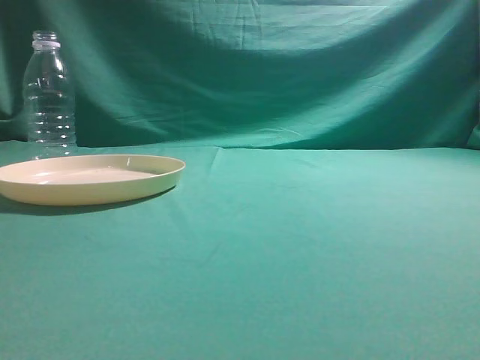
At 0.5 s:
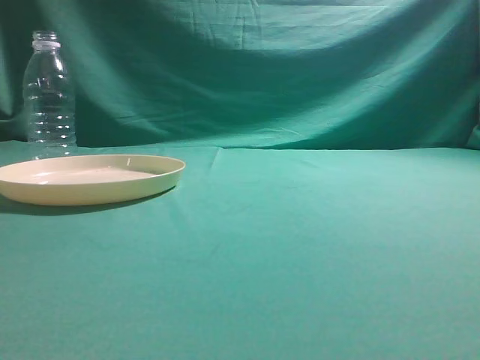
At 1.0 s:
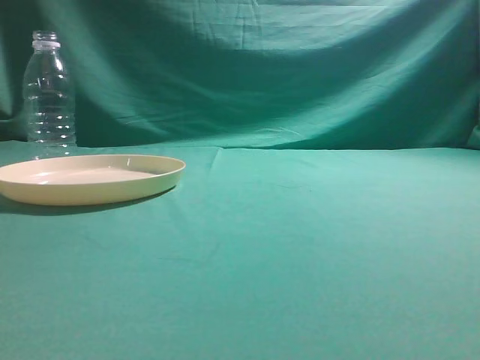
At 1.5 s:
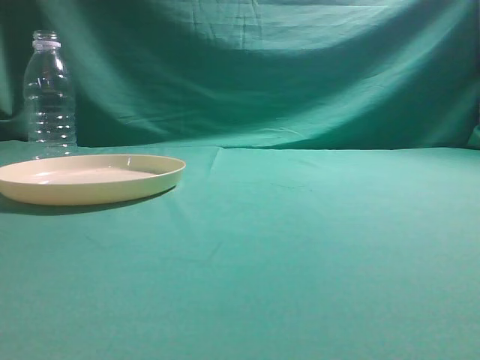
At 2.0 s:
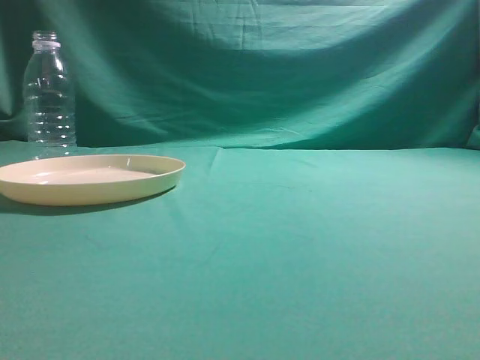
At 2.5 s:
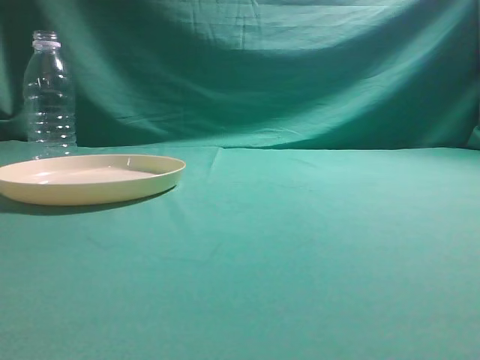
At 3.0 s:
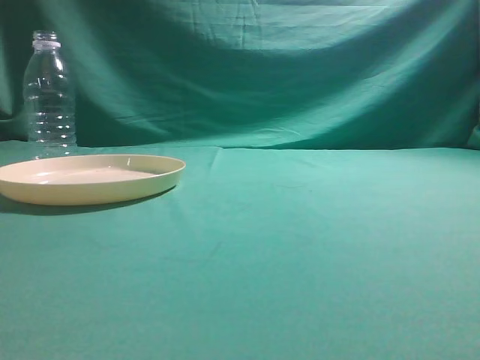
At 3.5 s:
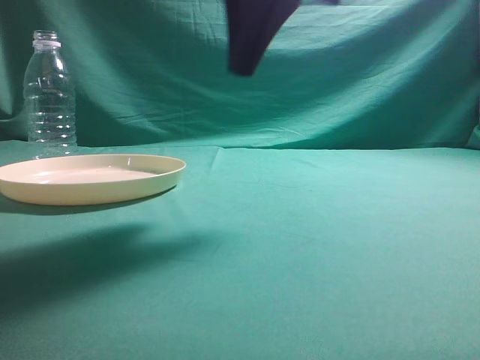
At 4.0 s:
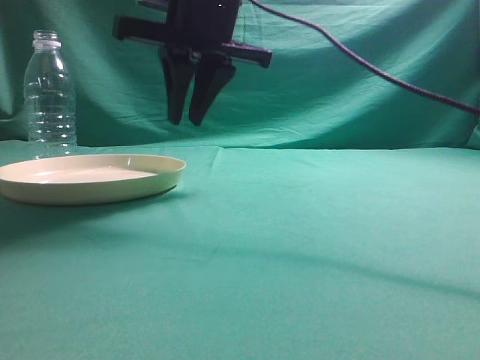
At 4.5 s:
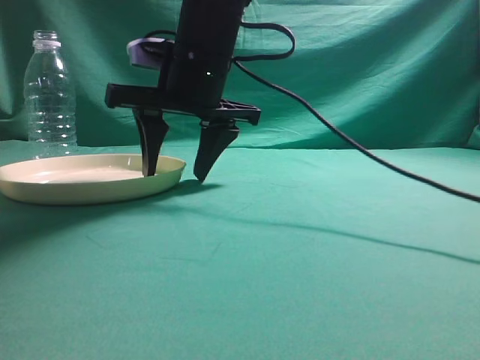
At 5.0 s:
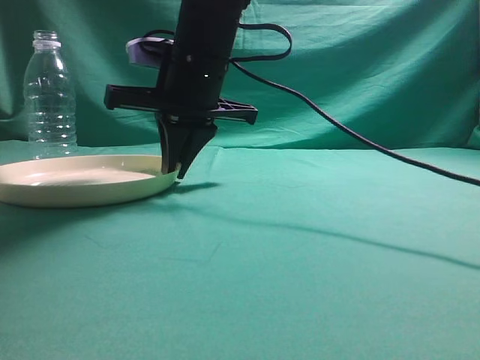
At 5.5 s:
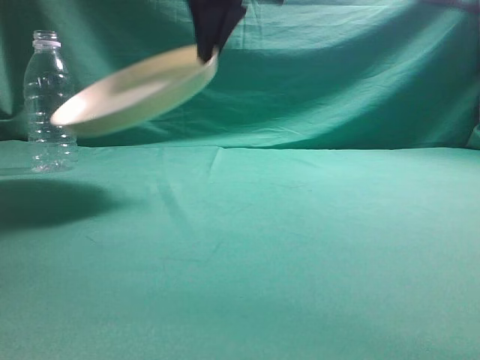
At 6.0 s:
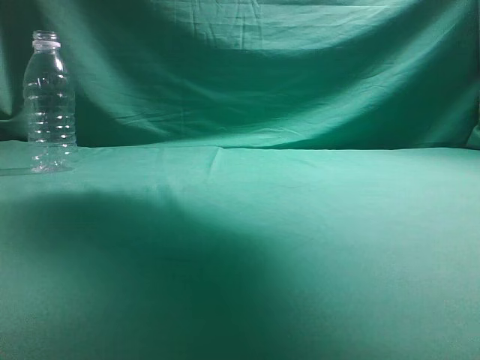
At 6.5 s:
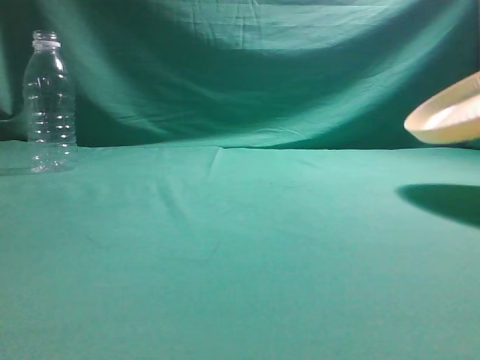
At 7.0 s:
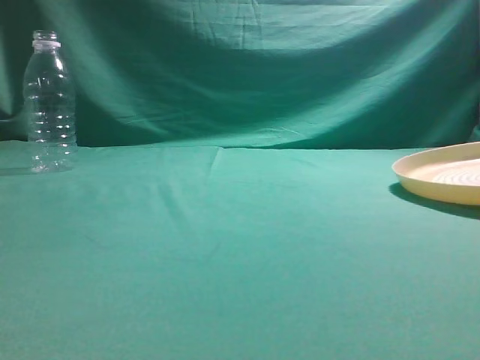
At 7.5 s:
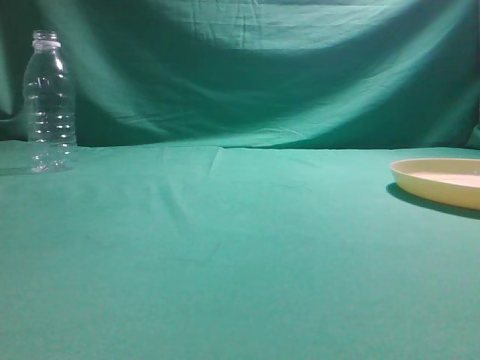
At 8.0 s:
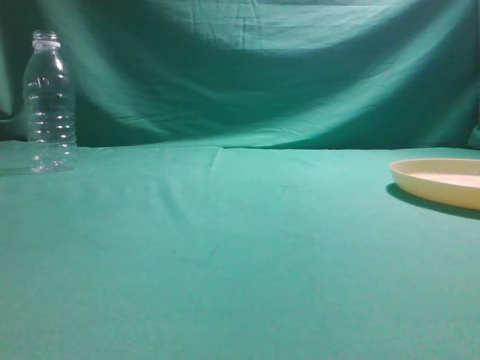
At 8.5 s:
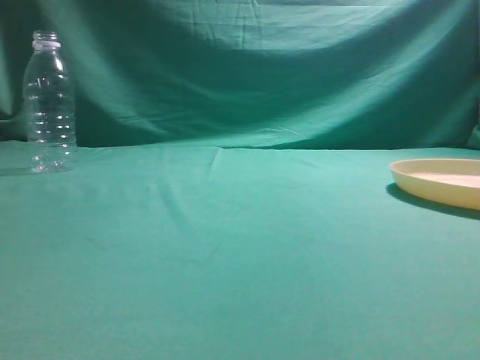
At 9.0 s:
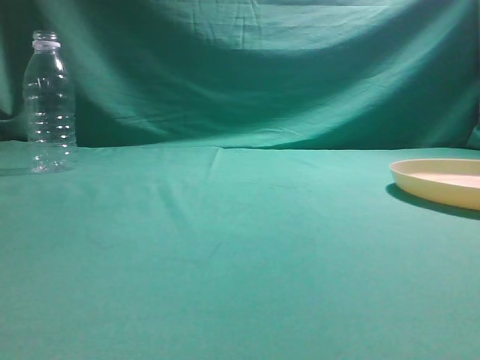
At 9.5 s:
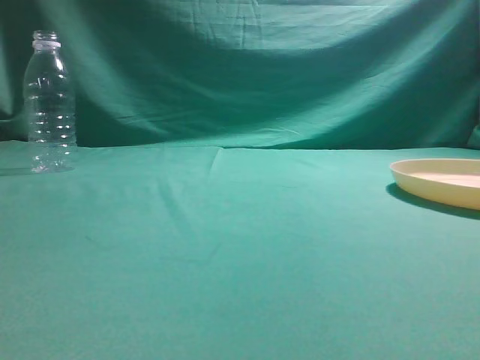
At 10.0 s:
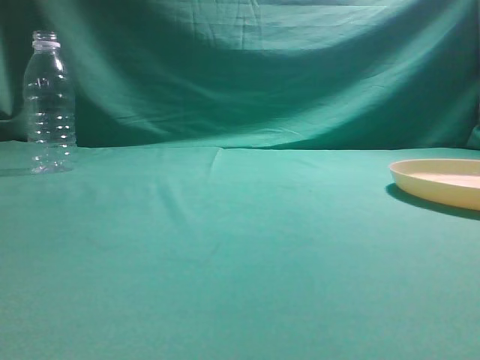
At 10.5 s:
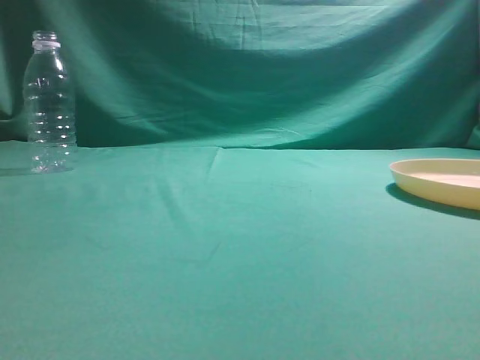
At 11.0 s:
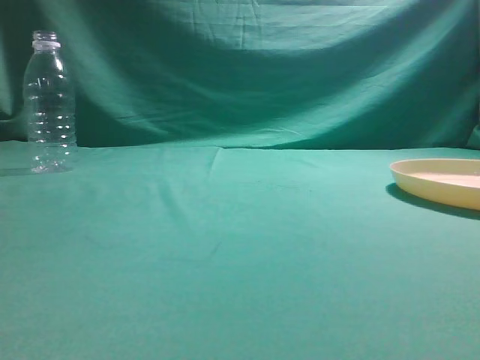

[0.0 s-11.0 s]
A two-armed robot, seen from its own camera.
Step, 0.0 to 5.0 s: Pick the container that can hold fruits.
Step, 5.5 to 7.5 s: Move the picked object to the right side of the table.
2.0 to 3.5 s: The right gripper is displaced to the left and forward by some 35 cm.
3.5 to 5.5 s: The right gripper shifts some 10 cm forward and to the left, travels downward and back again, about 10 cm each way, and opens, then closes again.
5.5 to 7.5 s: The right gripper shifts some 35 cm to the right, and opens up.
